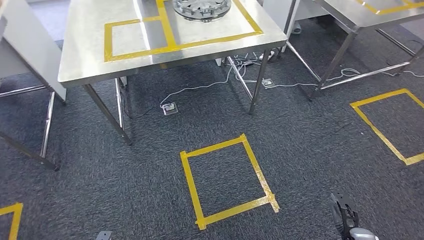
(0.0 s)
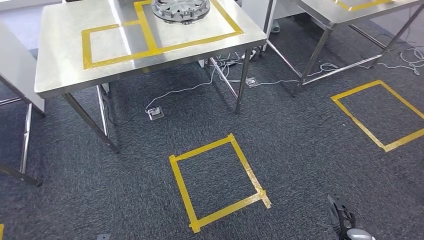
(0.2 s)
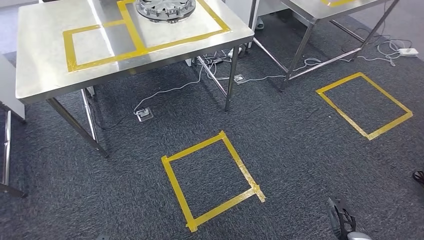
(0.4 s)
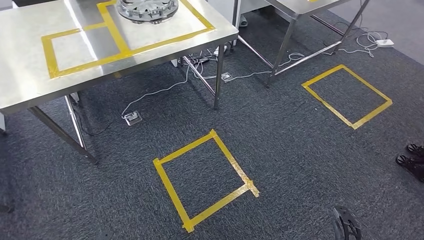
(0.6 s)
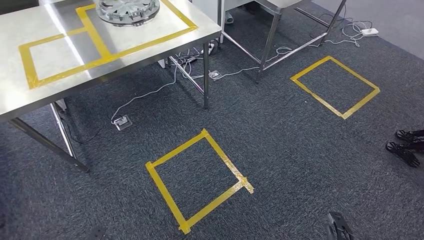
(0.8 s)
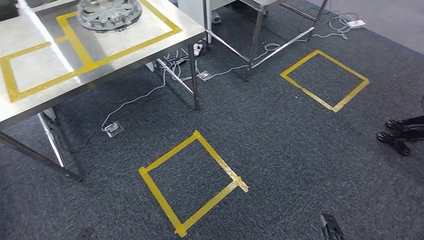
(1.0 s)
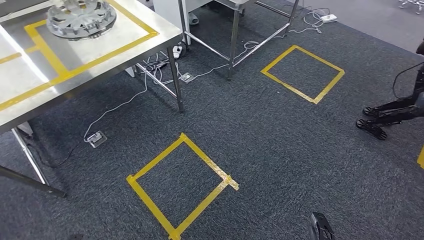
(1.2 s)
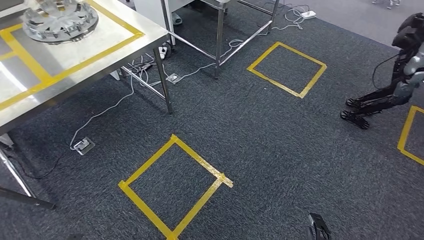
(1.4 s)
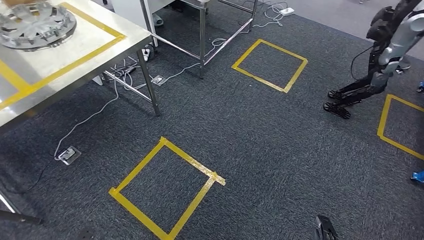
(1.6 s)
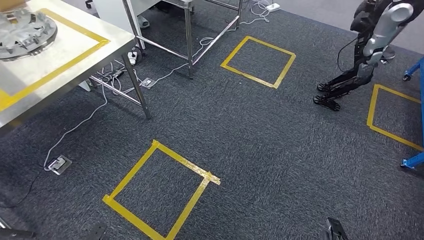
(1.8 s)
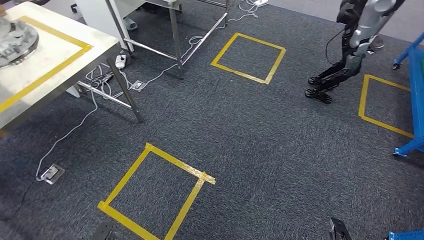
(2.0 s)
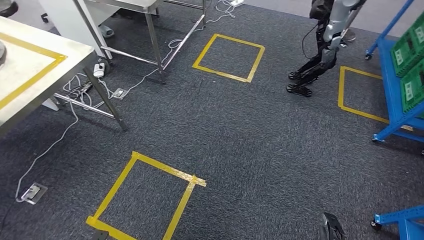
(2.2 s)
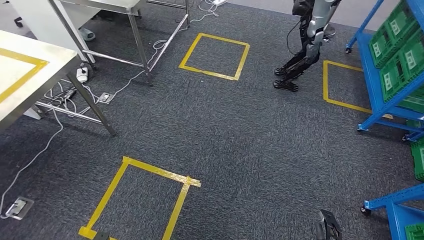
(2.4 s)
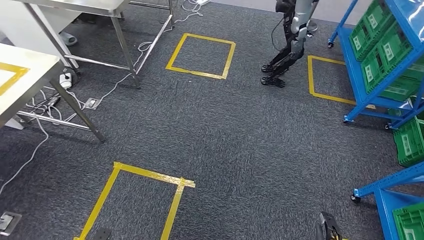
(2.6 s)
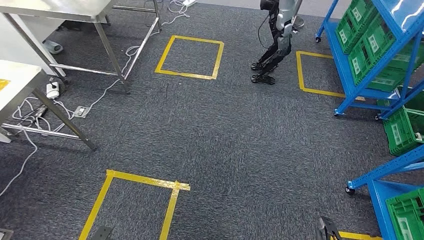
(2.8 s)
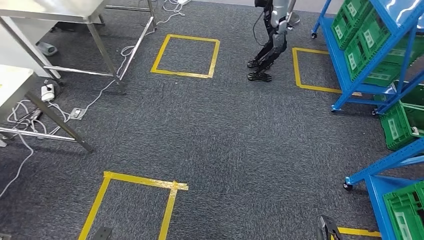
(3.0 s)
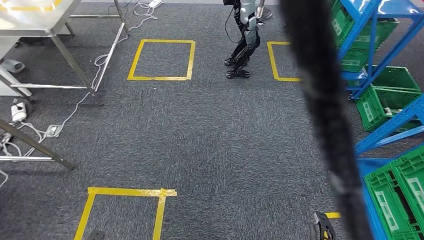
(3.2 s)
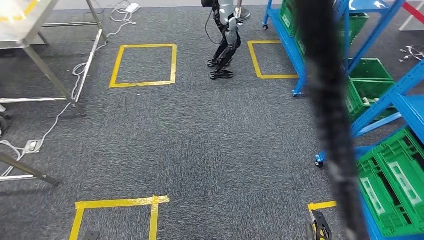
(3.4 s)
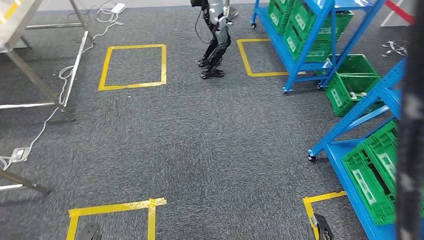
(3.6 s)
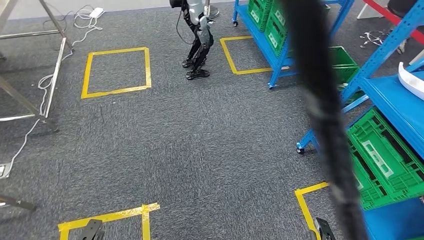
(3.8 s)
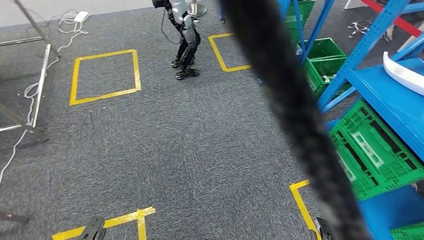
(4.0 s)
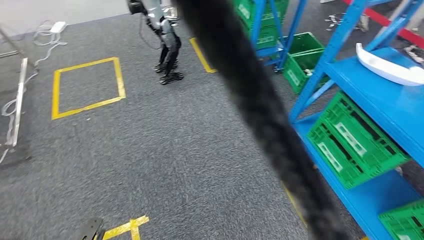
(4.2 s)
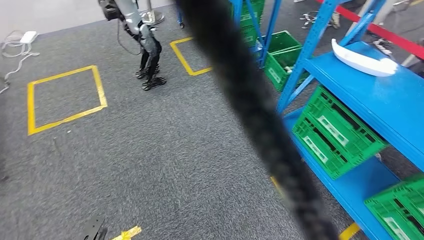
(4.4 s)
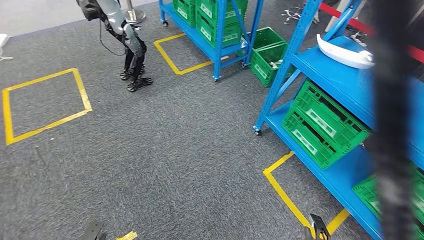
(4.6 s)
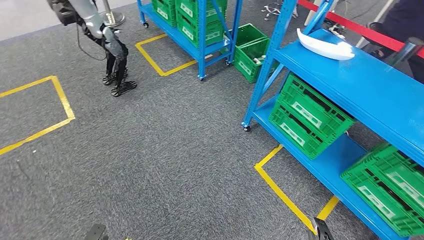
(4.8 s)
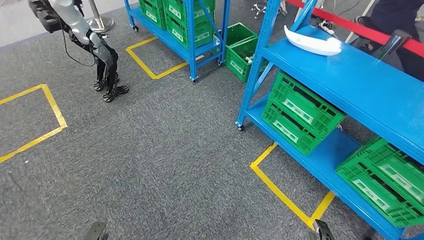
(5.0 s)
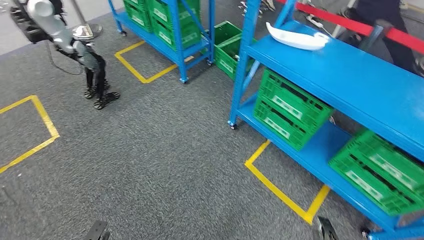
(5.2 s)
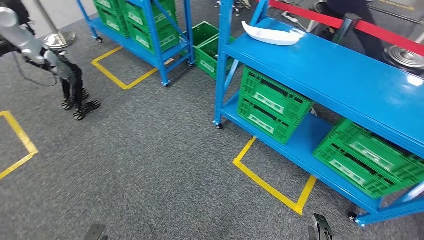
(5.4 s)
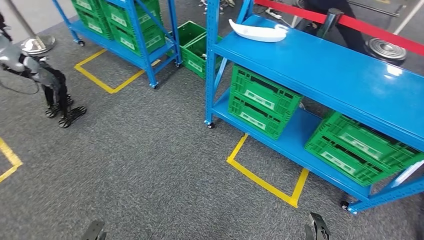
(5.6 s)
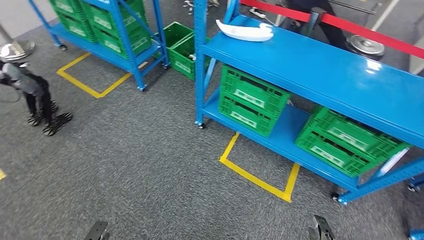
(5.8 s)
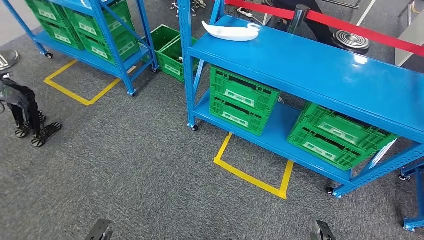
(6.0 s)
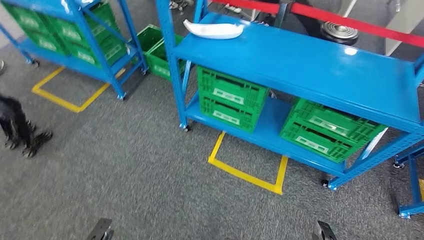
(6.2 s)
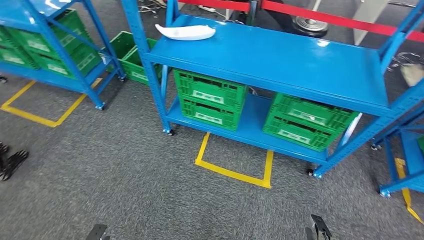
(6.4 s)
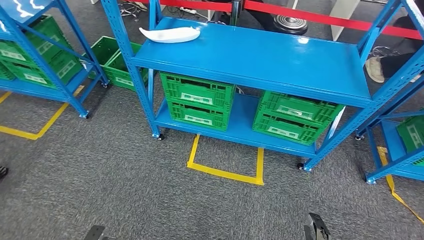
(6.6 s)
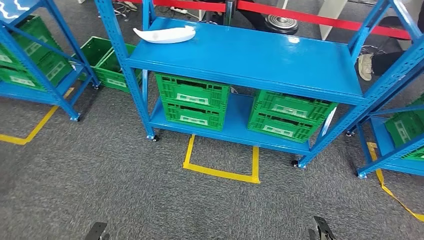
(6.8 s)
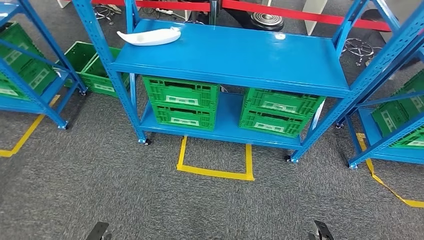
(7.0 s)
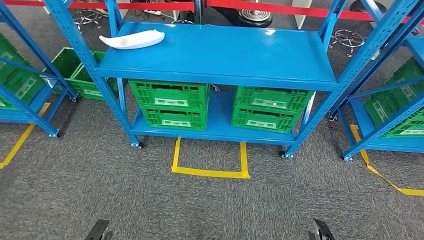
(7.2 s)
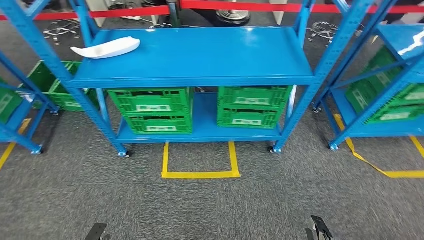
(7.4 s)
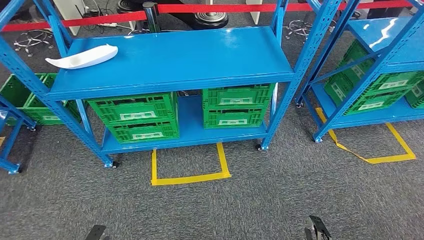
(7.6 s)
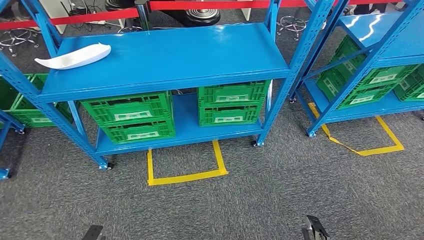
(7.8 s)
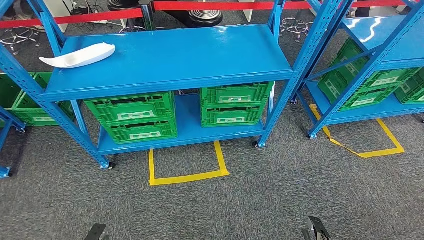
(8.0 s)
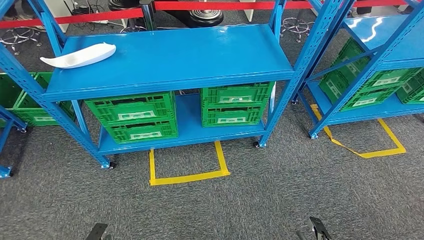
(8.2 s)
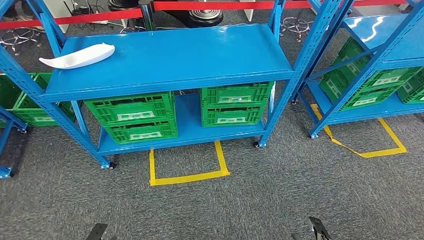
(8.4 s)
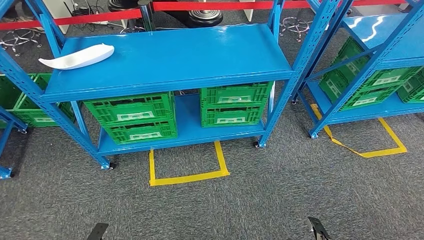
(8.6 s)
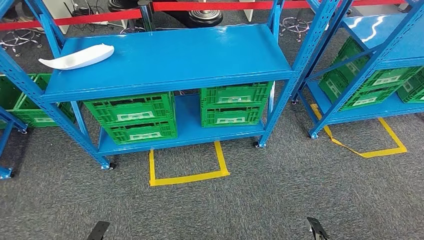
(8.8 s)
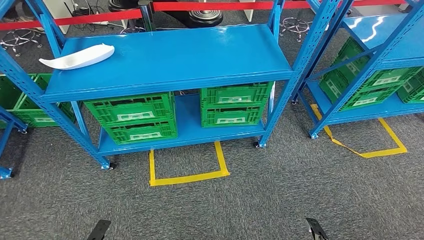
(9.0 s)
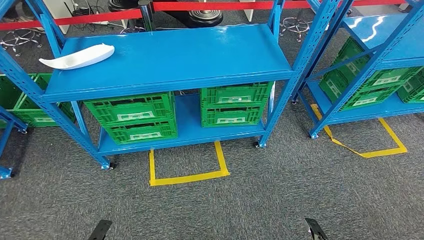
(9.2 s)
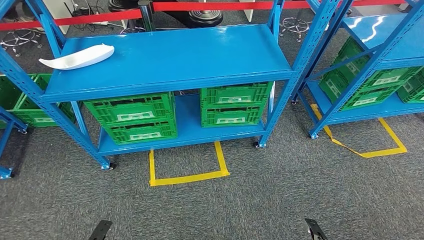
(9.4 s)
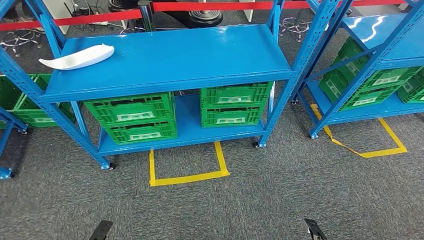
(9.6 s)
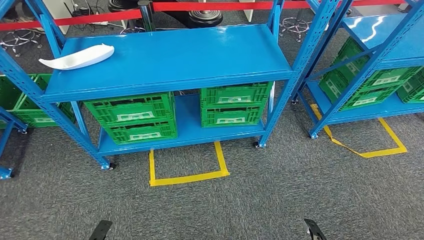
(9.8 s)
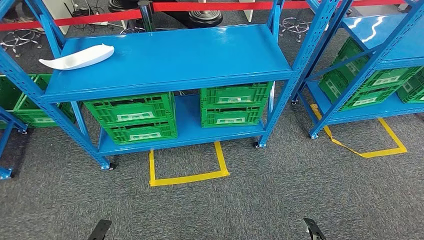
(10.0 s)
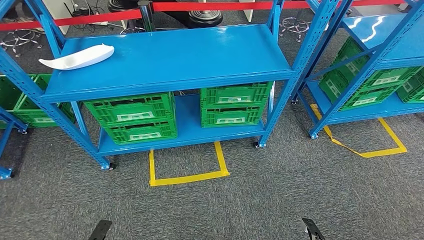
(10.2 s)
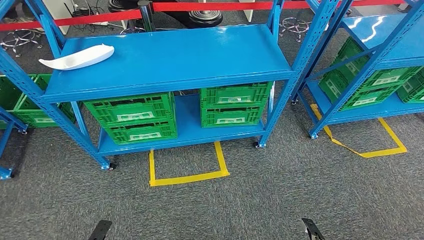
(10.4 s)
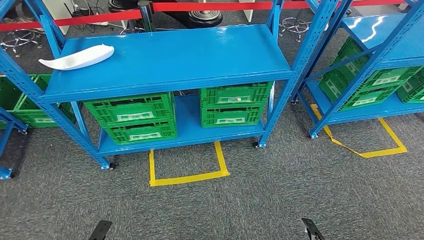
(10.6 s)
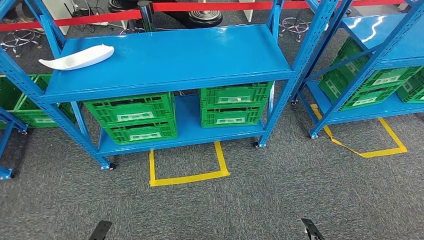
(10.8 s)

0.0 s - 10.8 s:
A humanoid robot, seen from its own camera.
7.8 s - 9.2 s: There are only small adjustments of the hands.
9.2 s - 10.8 s: Both hands stay put.

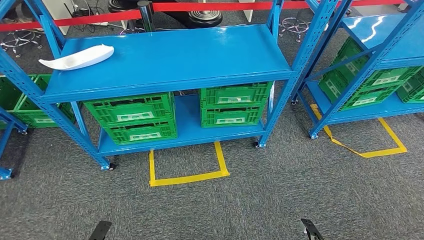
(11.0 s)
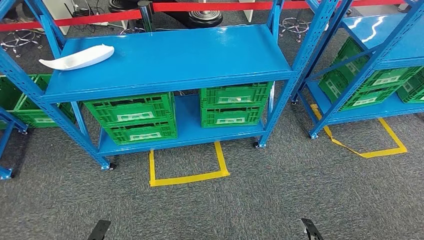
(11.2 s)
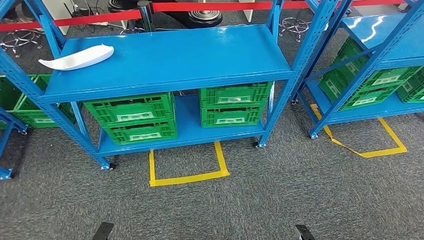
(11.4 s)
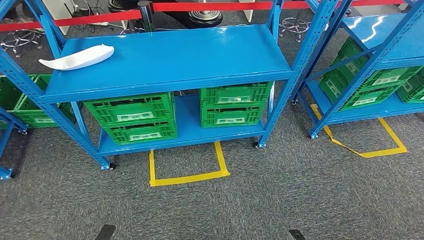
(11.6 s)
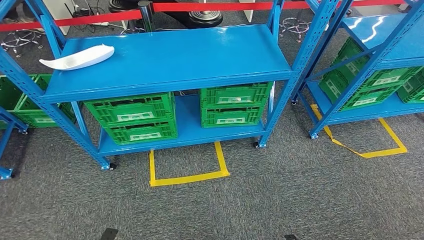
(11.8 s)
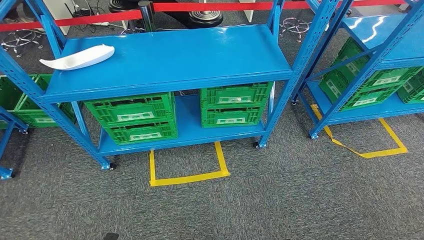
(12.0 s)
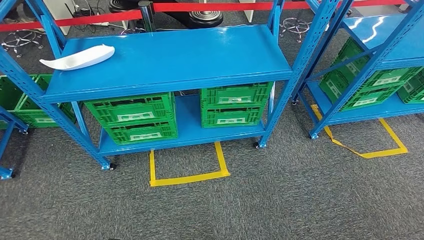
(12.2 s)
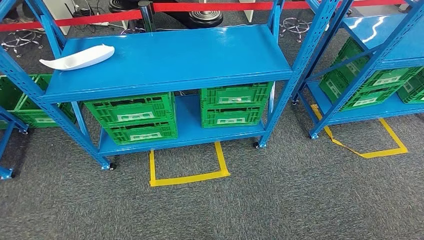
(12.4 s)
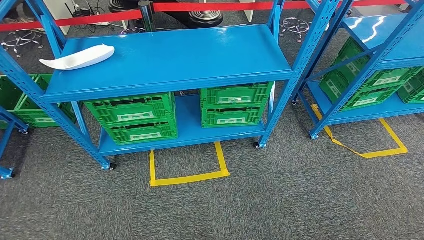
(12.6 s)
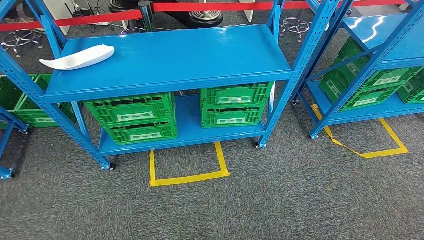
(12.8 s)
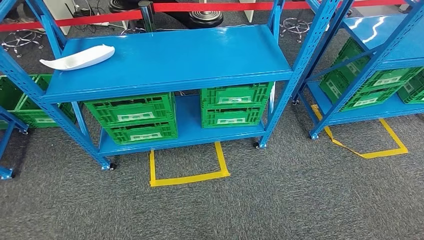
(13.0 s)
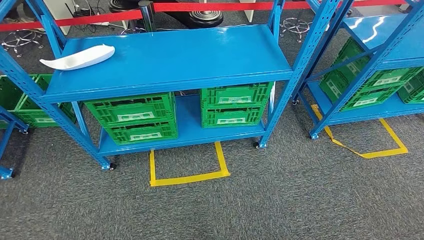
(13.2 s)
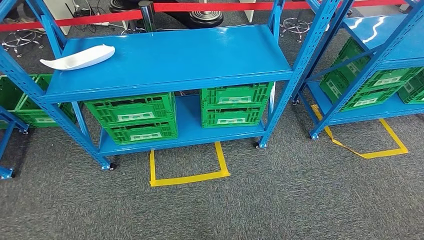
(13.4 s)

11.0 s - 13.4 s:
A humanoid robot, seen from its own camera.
11.0 s - 12.2 s: The left hand travels backward by approximately 5 cm. The right hand travels backward and to the left by roughly 10 cm.

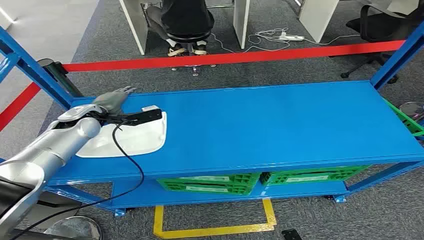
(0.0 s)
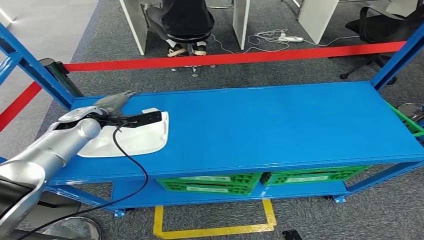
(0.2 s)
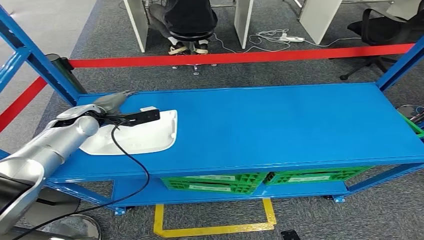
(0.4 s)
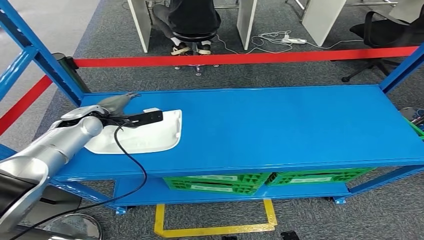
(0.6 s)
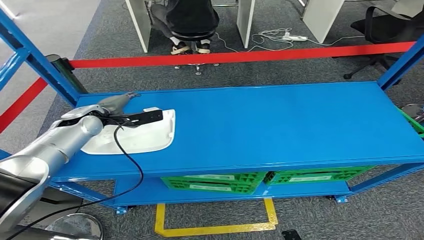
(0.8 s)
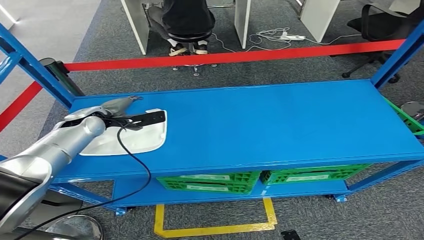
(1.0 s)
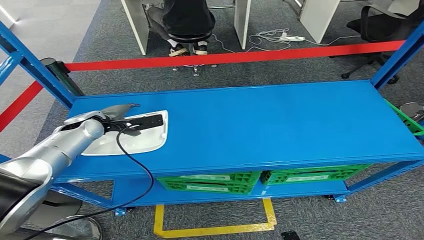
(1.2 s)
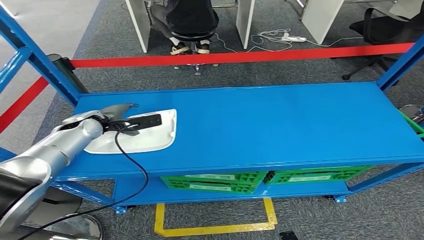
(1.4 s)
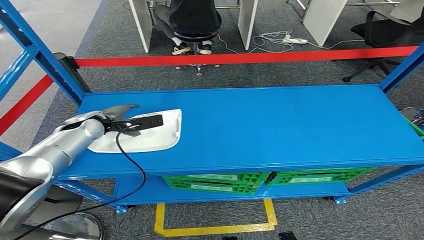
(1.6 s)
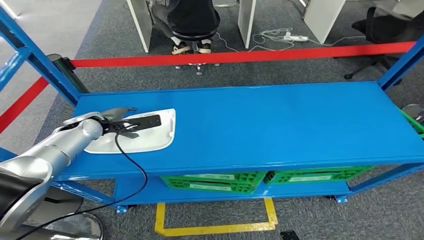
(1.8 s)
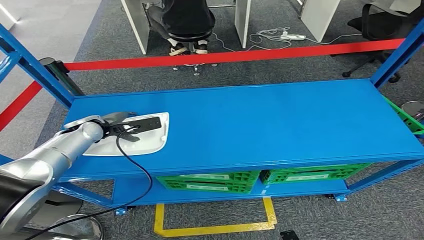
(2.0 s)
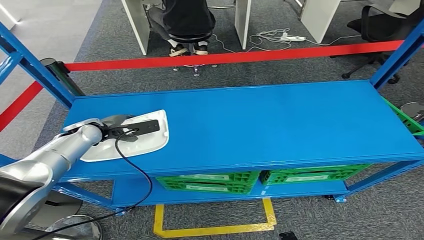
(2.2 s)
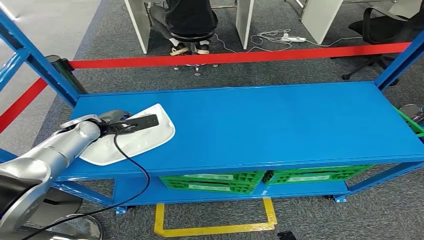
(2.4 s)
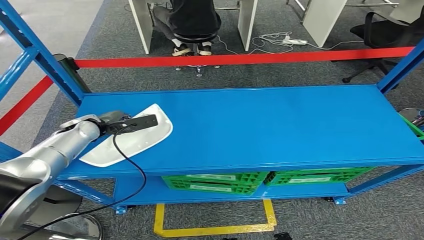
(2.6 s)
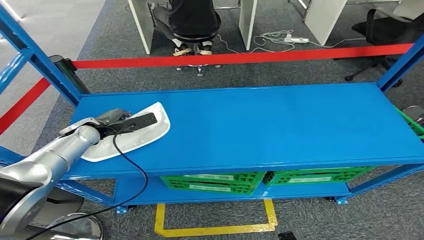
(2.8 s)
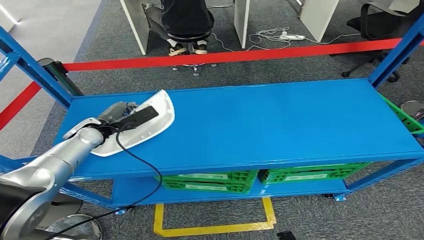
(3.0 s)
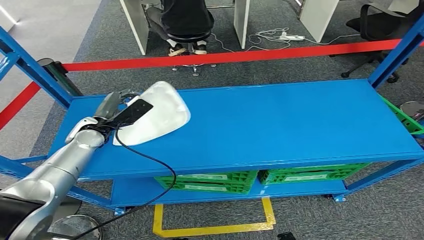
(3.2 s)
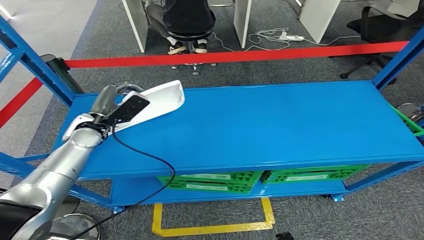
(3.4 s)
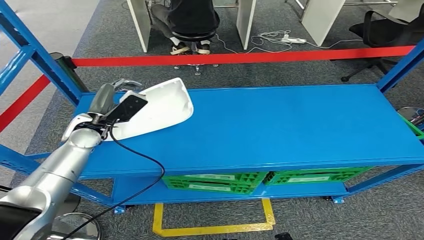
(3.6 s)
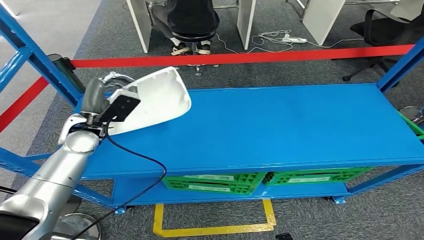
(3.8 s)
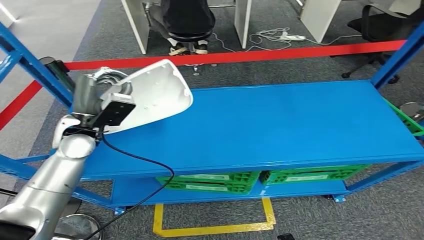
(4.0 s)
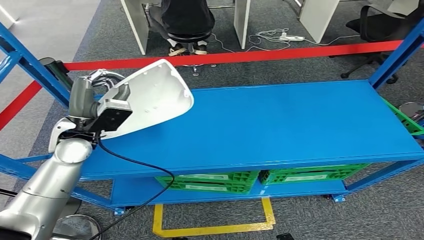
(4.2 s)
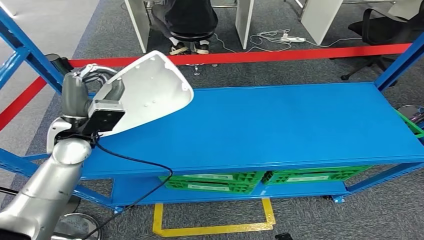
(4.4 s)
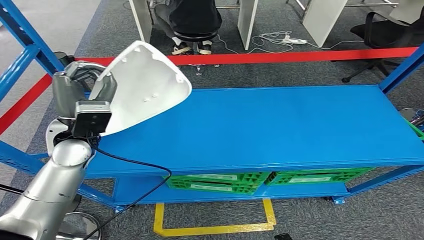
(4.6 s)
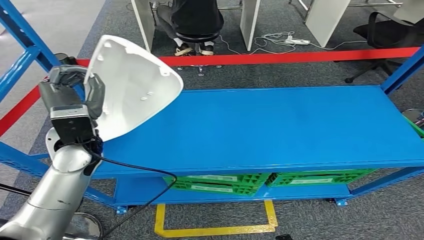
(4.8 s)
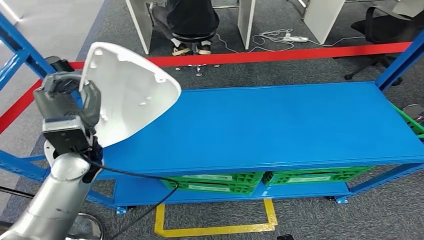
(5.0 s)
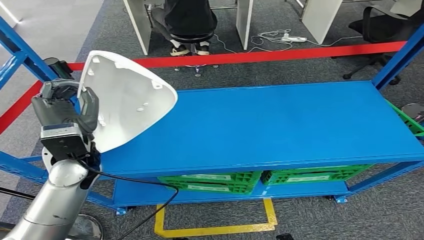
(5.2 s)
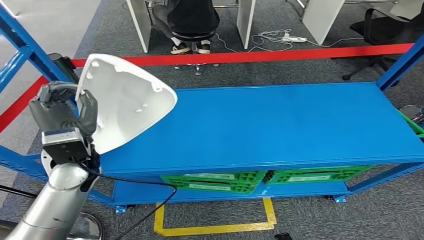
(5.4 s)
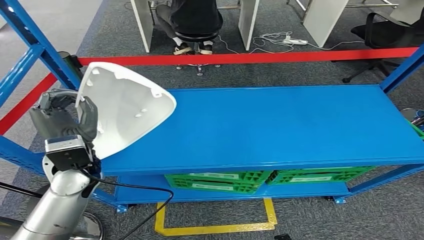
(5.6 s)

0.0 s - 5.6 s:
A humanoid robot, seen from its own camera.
Step, 0.0 s - 5.2 s: Pick up the small component from the shelf.
1.4 s - 2.8 s: The hands stay close to where they were, moving slightly.
